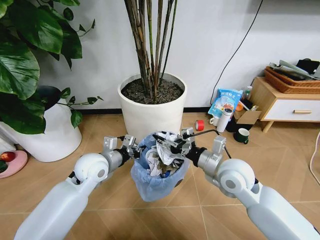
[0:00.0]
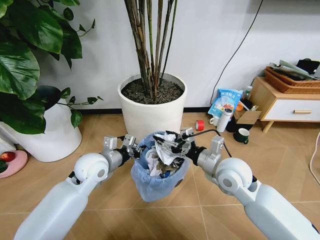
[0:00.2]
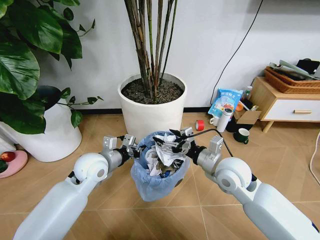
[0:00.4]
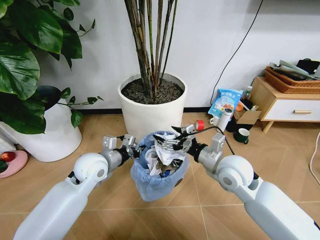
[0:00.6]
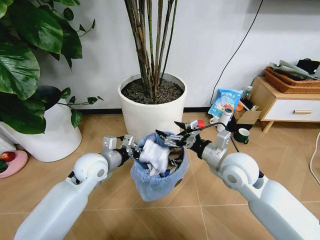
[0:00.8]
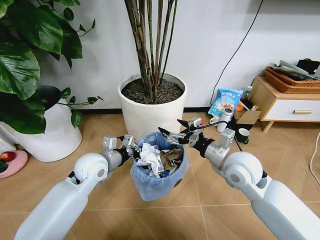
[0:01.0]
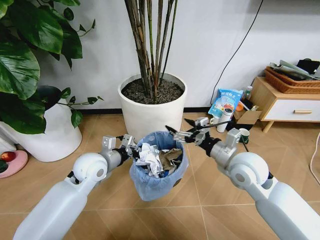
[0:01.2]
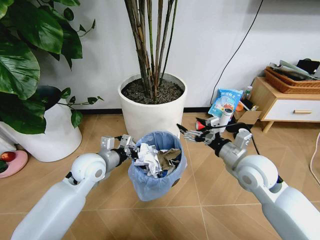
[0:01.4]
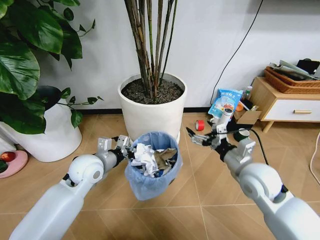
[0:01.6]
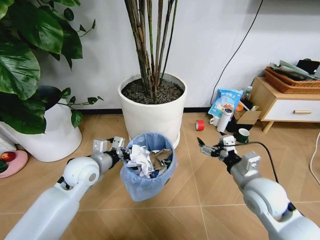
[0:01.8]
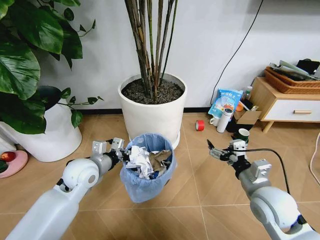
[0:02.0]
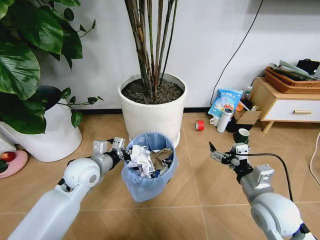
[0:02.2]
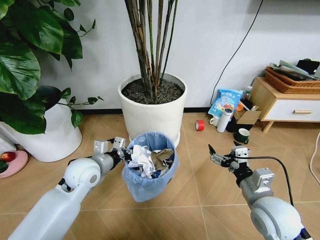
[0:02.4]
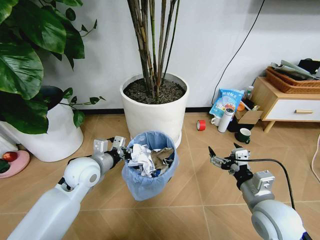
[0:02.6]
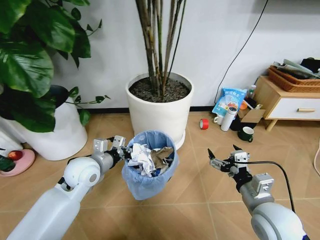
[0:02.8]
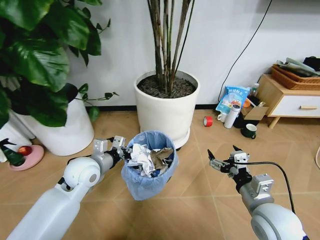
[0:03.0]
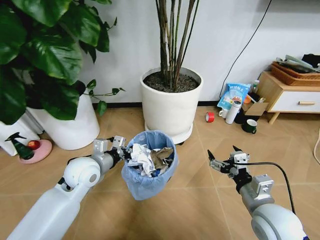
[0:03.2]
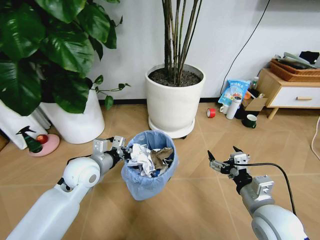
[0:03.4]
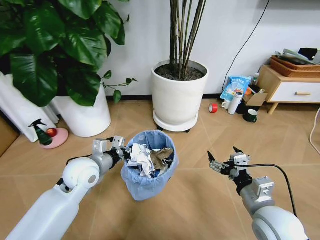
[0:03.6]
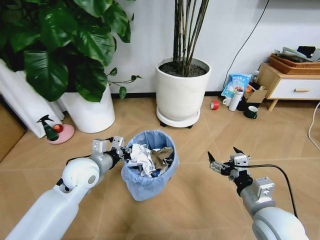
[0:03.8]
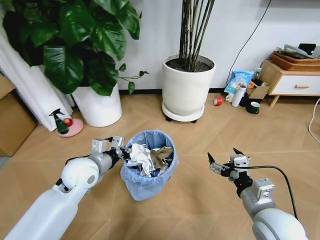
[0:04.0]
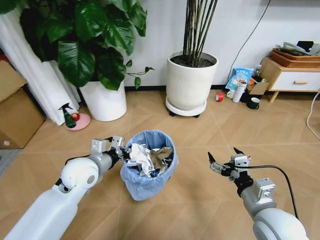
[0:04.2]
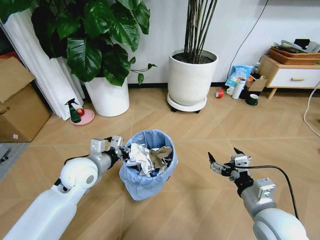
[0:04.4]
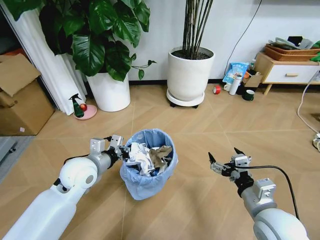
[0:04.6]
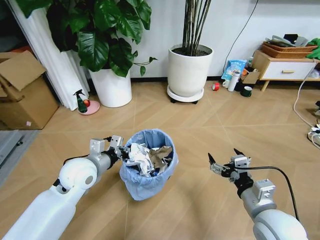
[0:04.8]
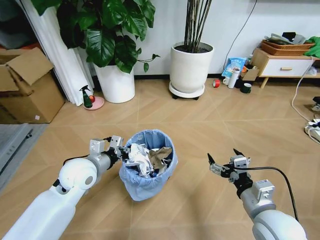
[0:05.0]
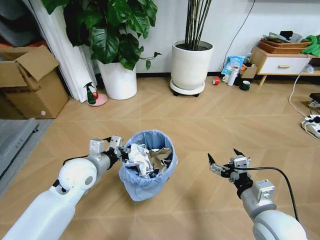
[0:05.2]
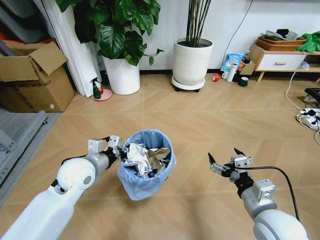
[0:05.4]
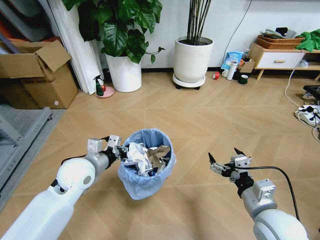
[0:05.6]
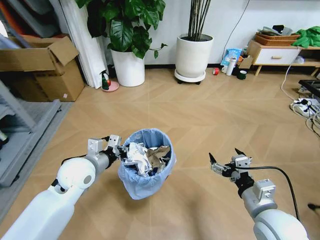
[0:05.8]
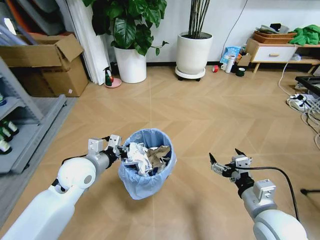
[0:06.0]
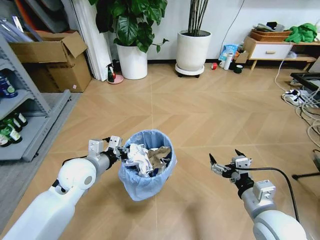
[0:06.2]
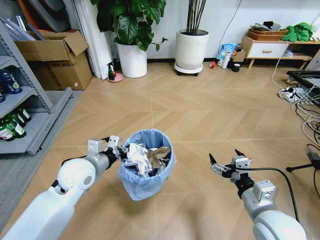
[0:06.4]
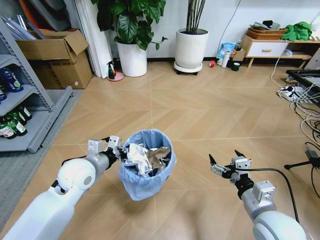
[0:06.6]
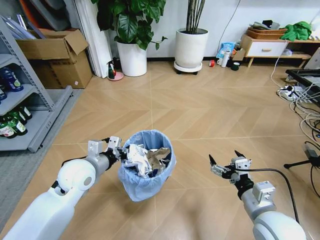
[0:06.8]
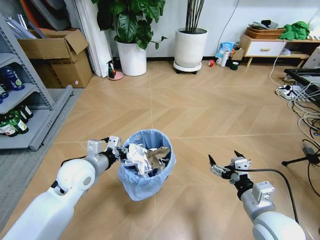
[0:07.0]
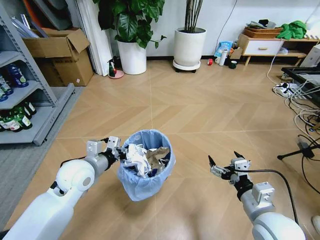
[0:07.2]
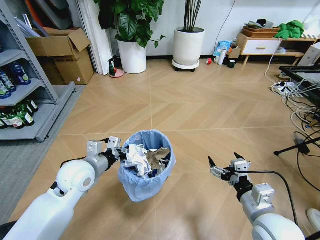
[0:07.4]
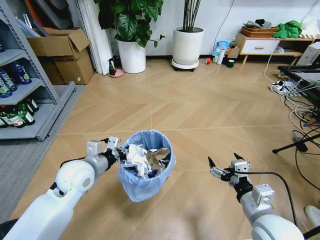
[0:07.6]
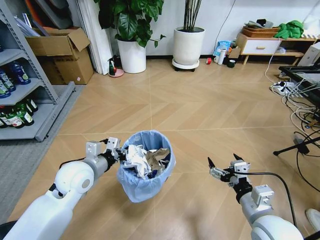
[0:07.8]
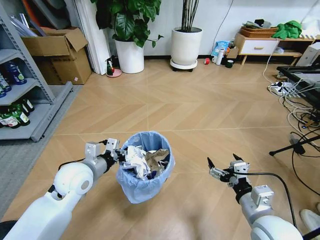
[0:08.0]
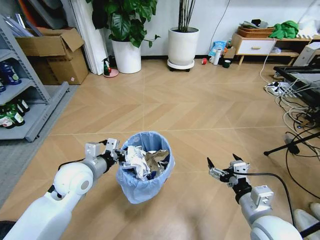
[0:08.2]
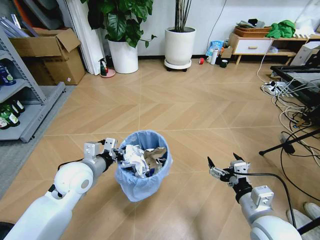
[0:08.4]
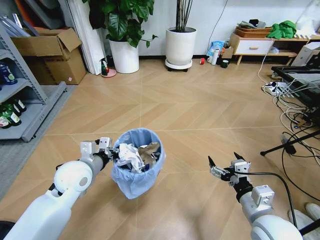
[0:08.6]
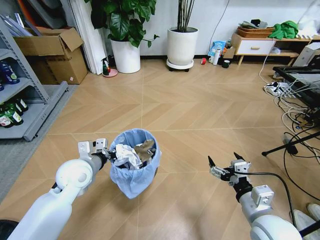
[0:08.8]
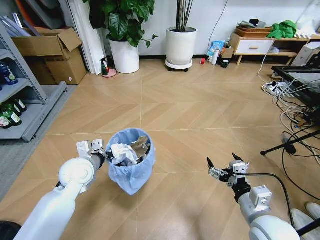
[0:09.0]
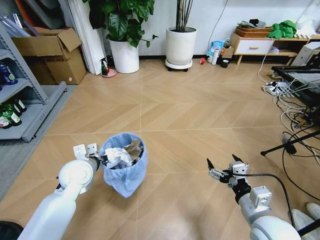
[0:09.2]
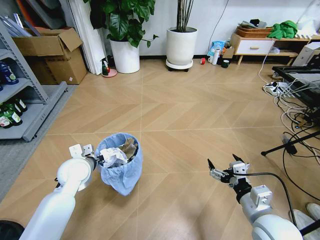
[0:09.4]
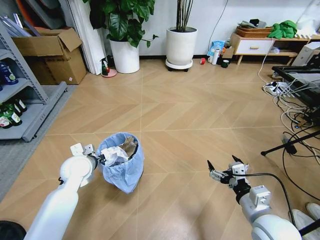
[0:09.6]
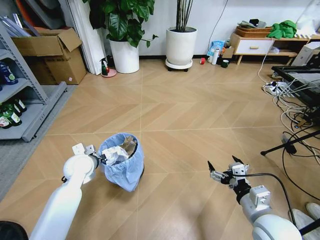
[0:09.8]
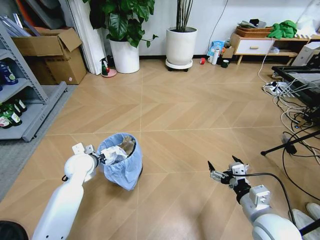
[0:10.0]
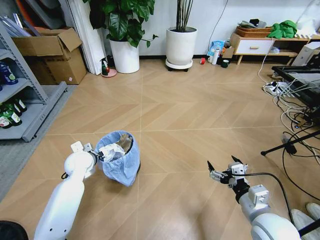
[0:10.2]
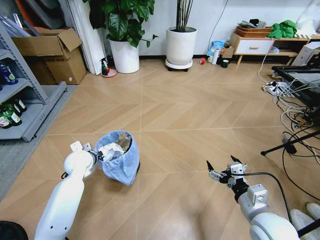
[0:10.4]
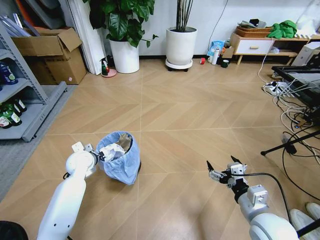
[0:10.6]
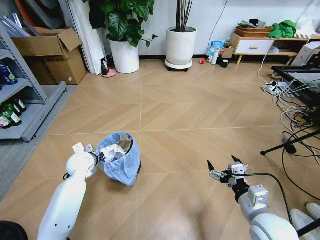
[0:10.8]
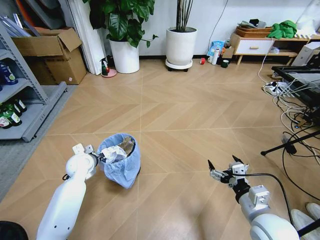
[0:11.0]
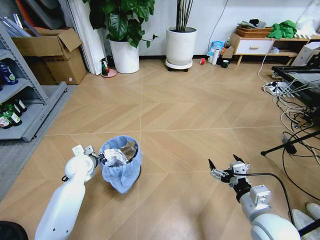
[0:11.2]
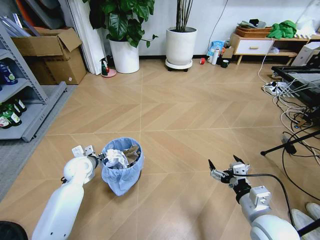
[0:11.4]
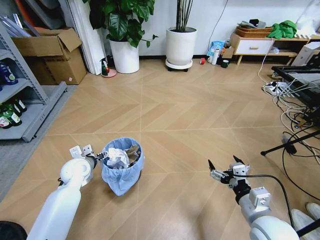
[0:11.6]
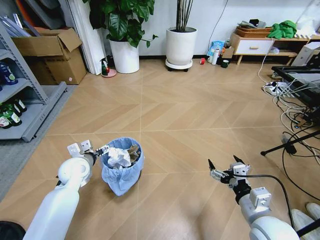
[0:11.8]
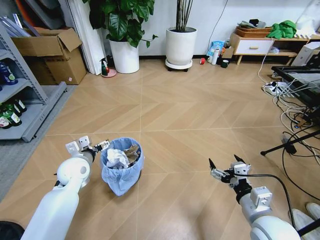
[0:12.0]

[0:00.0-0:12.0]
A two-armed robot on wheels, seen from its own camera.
Task of the whole recording: Pick up the trash bin and place the garbage on the floor into it.
0:00.0 to 0:01.6: The right gripper moves to the right, some 5 cm, and opens up.
0:01.6 to 0:03.0: The right gripper shifts some 10 cm backward.
0:09.0 to 0:10.4: The left gripper heads forward and downward, covering some 10 cm.
0:10.4 to 0:12.0: The left gripper opens its fingers.

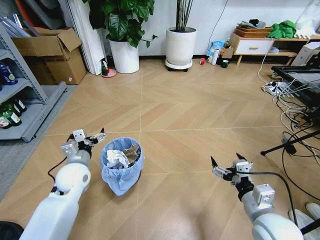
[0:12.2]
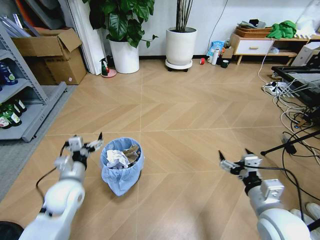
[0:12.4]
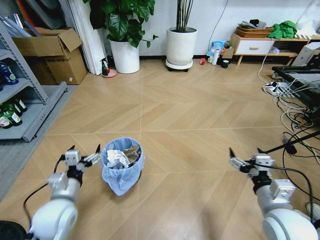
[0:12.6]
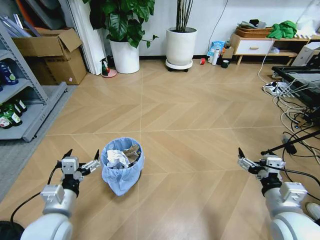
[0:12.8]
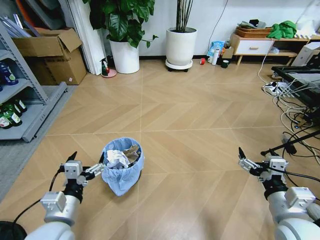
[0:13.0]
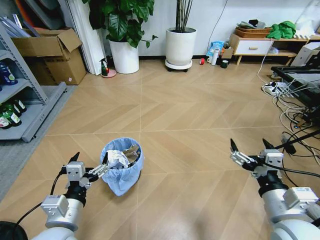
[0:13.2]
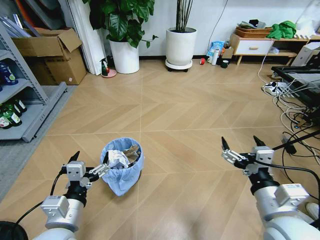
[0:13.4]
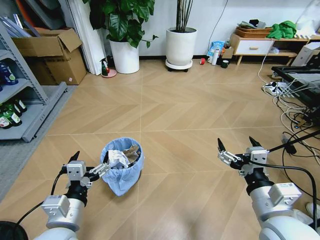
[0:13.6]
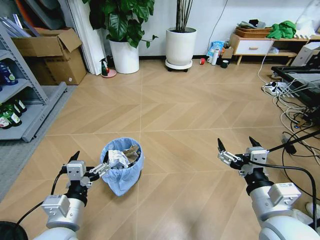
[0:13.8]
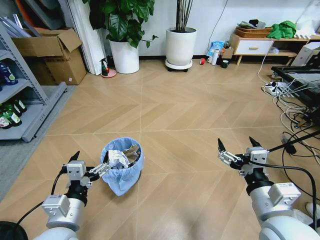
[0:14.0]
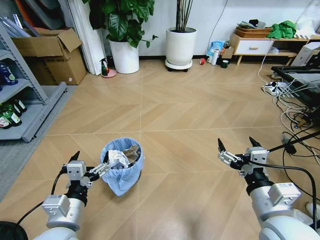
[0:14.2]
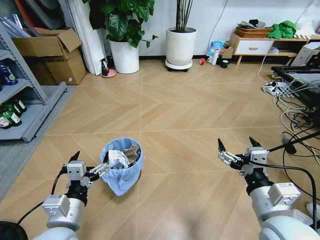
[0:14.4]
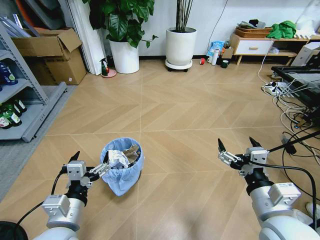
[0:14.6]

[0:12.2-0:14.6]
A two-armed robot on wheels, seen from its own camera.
Task of the whole recording: Pick up the trash bin and place the garbage on the floor into it.
0:12.2 to 0:13.4: The right gripper heads upward, covering some 10 cm, while the left gripper heads backward, covering about 20 cm.
0:13.4 to 0:14.6: Both grippers stay about where they are.

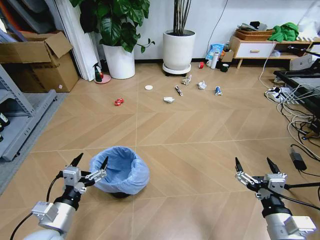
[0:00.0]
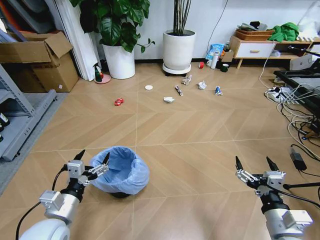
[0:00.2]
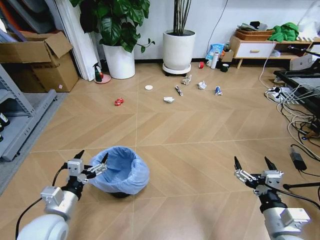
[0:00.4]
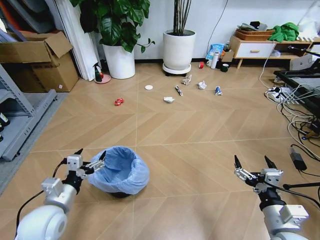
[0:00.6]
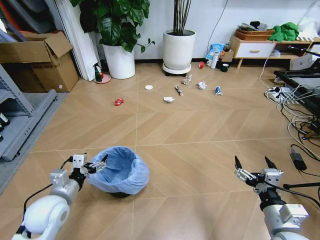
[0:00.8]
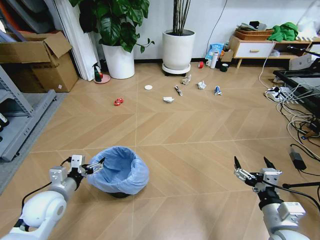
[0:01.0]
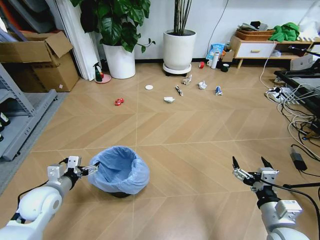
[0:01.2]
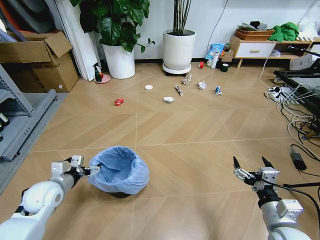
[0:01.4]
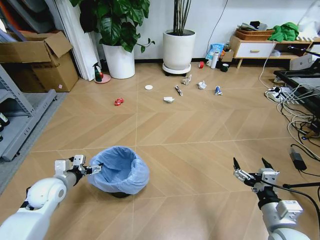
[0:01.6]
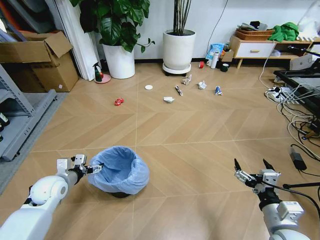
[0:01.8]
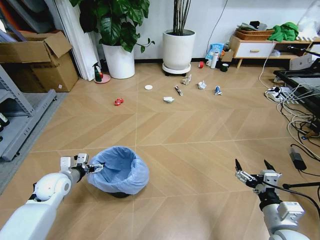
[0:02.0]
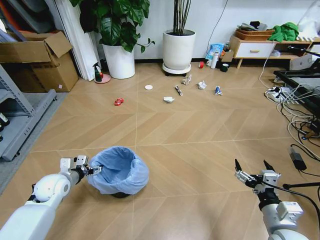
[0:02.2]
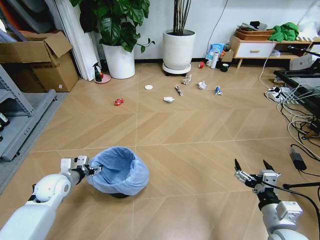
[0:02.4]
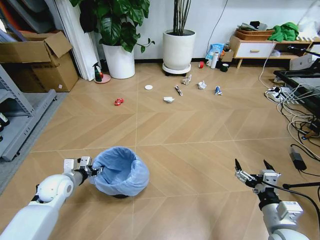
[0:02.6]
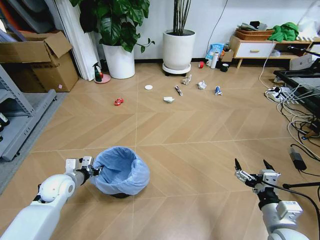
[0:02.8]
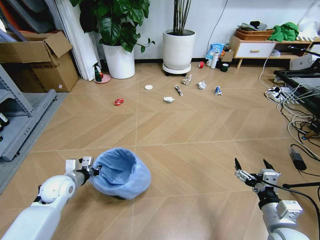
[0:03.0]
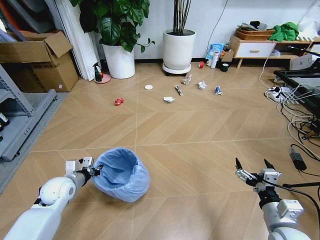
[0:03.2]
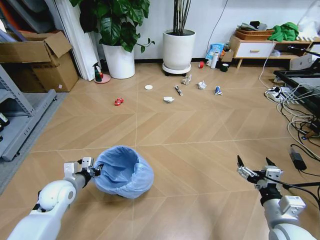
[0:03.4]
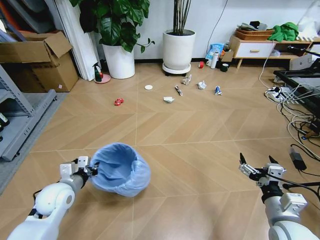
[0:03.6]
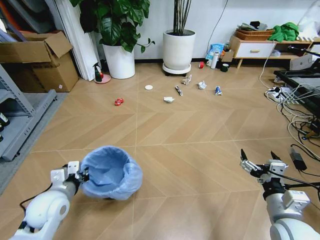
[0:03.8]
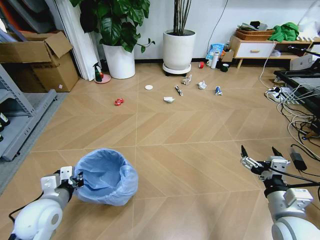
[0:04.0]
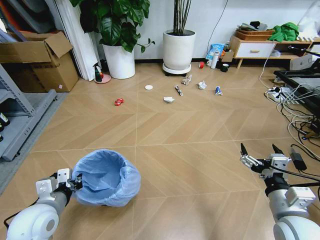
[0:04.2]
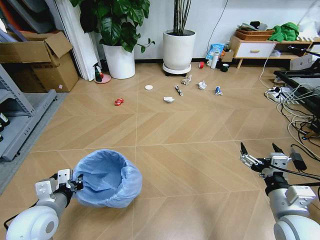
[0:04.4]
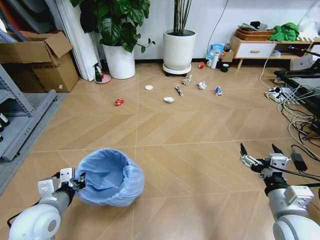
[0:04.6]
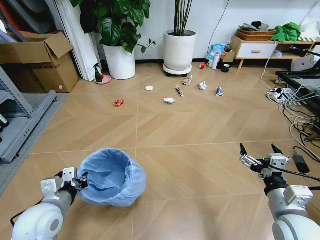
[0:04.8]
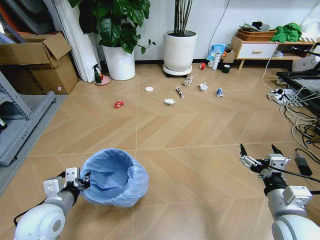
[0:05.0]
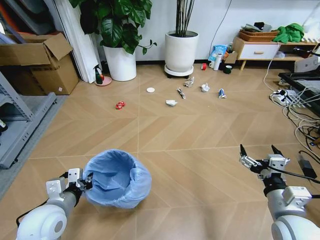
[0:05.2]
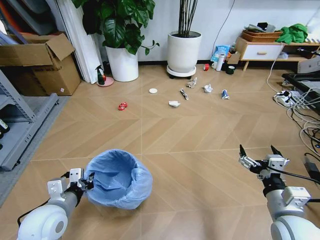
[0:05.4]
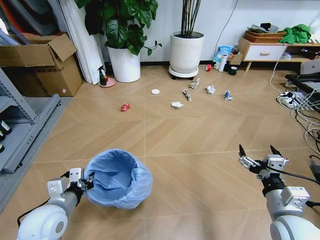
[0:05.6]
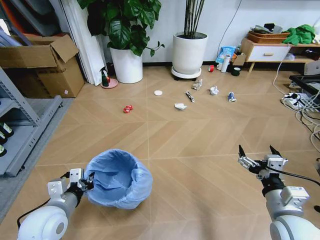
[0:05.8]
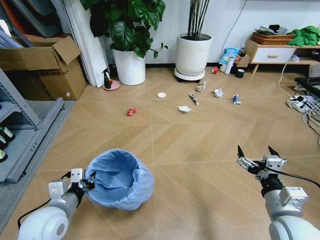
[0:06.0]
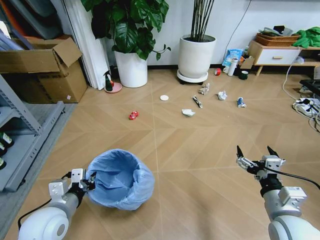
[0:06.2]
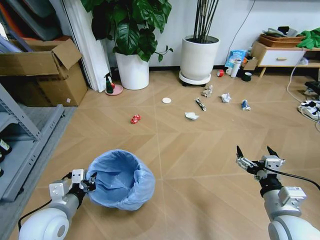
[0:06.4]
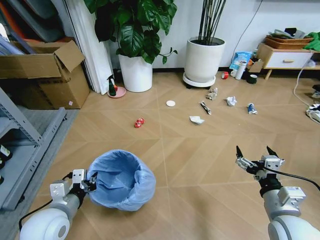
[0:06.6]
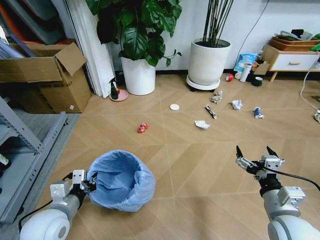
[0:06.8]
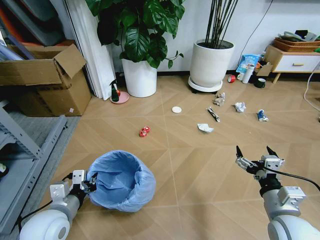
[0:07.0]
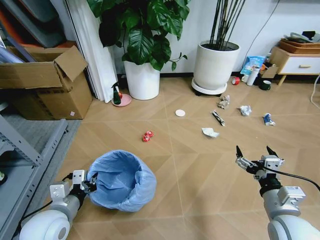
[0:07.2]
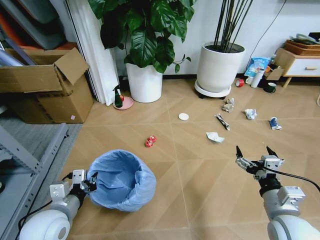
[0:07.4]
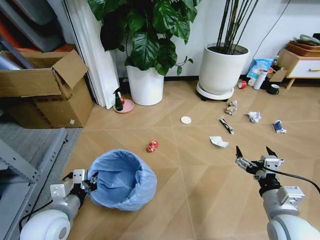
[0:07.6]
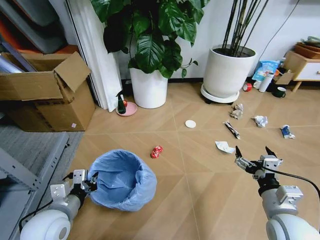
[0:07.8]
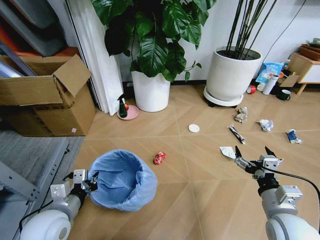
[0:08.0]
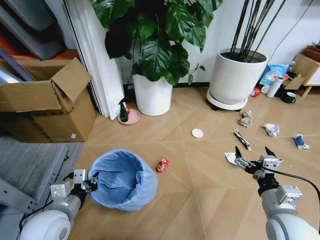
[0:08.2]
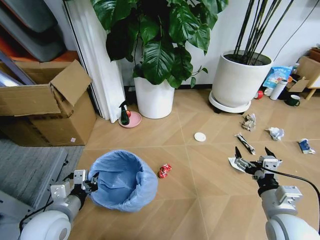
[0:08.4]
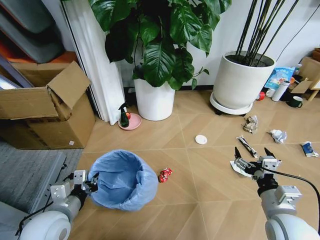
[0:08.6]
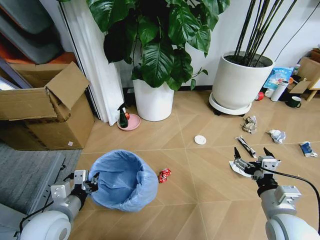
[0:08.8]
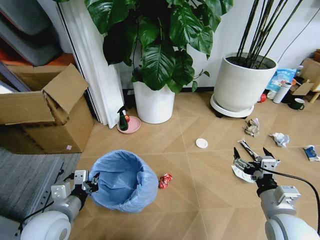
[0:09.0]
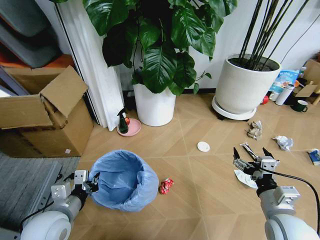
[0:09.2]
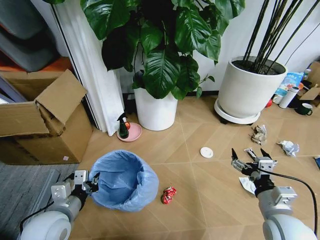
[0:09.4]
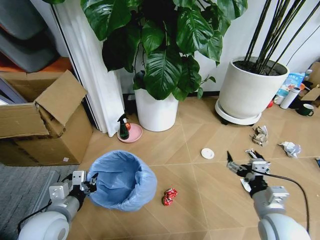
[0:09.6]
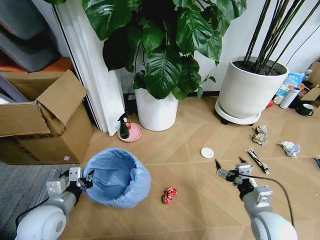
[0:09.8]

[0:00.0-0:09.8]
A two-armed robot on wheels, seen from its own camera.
Task of the whole recording: Pick up the trash bin and place the garbage on the floor into it.
0:01.4 to 0:02.8: The left gripper moves about 5 cm, and closes its fingers.
0:02.8 to 0:04.2: The left gripper is displaced backward and upward by some 15 cm. Meanwhile the right gripper is displaced upward by approximately 5 cm.
0:08.4 to 0:09.8: The right gripper goes approximately 5 cm downward.
